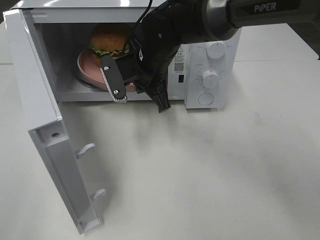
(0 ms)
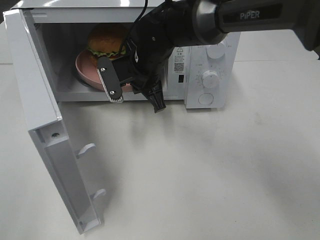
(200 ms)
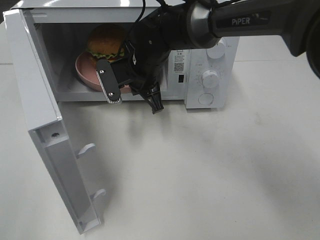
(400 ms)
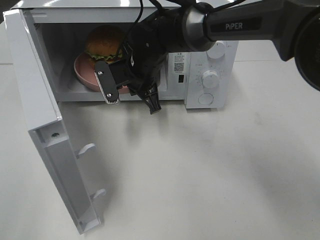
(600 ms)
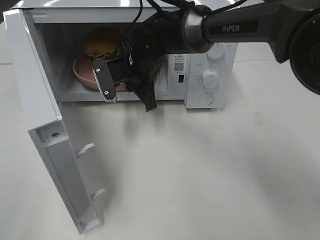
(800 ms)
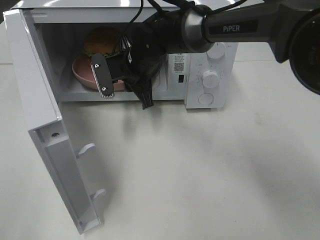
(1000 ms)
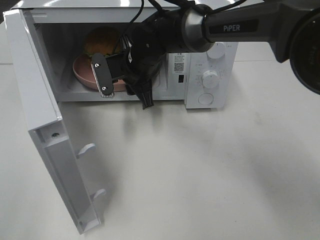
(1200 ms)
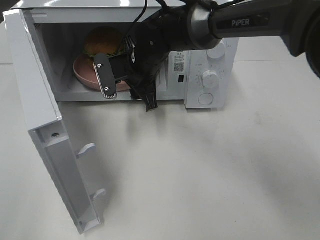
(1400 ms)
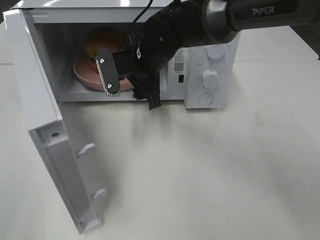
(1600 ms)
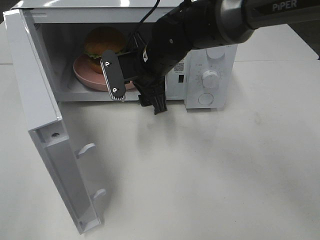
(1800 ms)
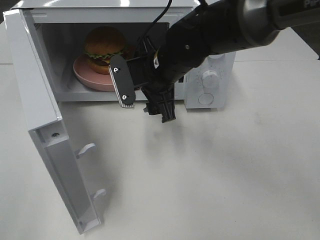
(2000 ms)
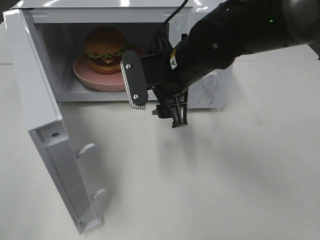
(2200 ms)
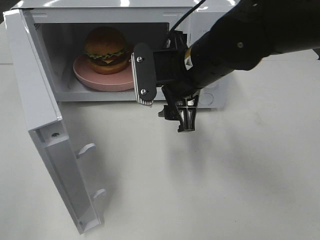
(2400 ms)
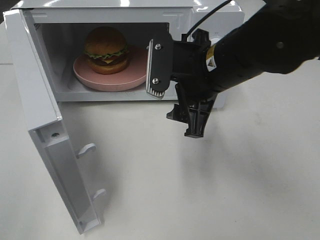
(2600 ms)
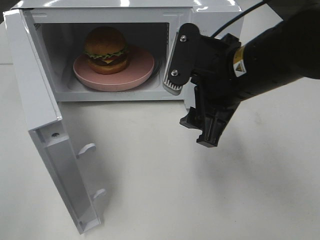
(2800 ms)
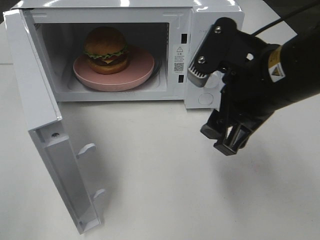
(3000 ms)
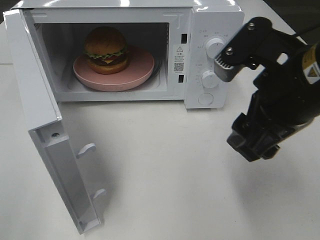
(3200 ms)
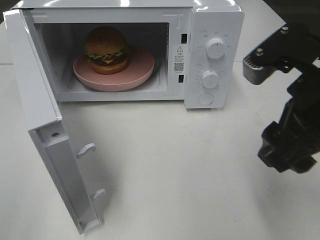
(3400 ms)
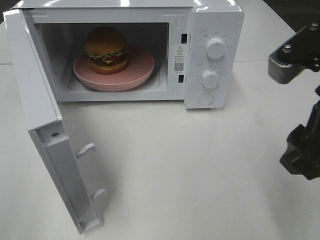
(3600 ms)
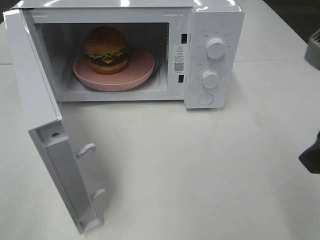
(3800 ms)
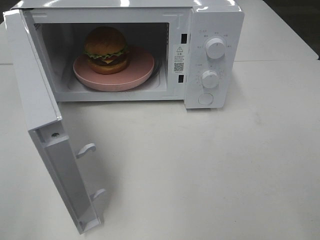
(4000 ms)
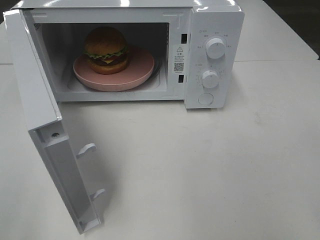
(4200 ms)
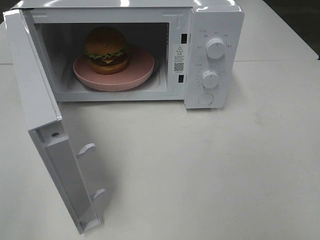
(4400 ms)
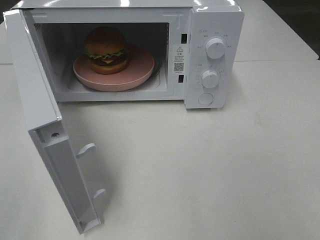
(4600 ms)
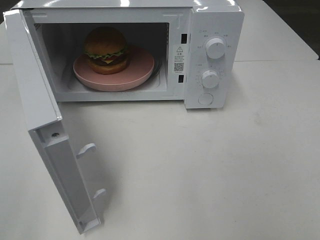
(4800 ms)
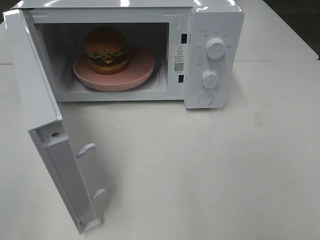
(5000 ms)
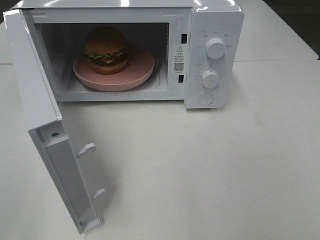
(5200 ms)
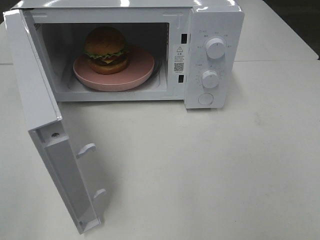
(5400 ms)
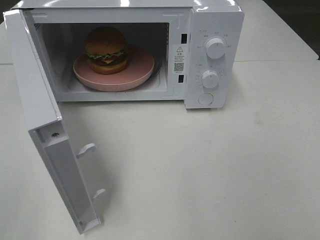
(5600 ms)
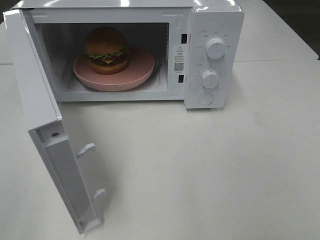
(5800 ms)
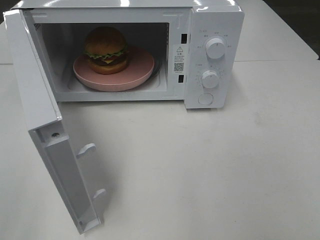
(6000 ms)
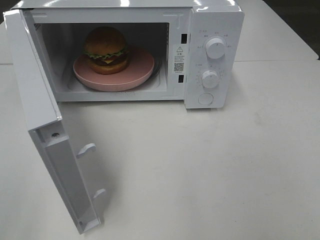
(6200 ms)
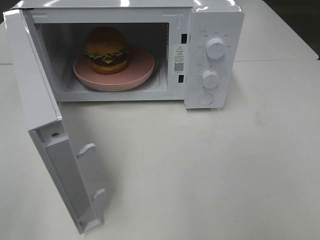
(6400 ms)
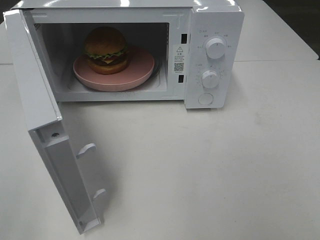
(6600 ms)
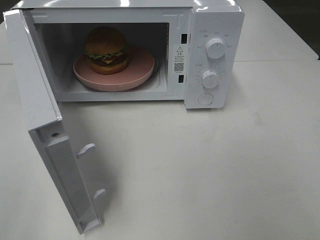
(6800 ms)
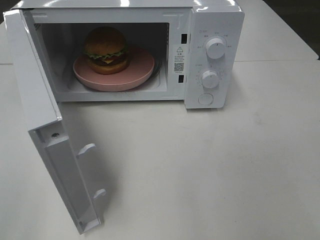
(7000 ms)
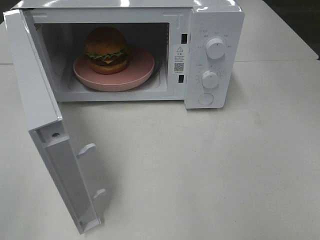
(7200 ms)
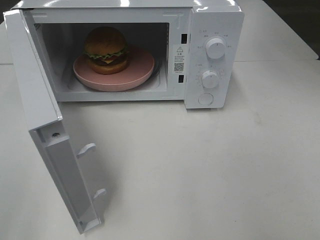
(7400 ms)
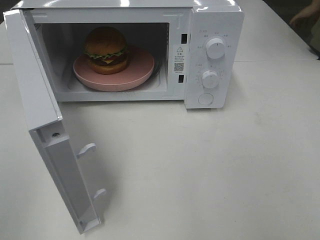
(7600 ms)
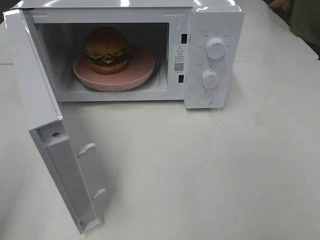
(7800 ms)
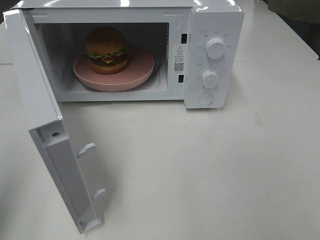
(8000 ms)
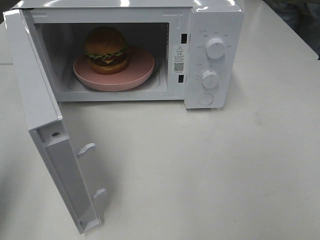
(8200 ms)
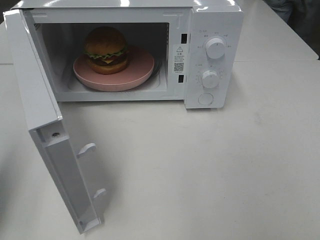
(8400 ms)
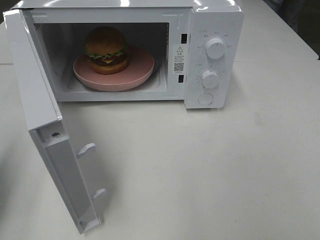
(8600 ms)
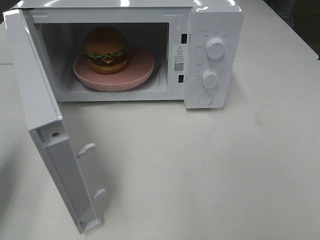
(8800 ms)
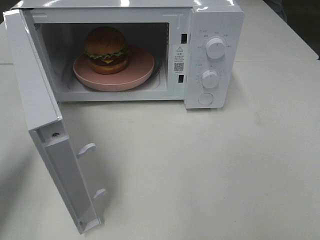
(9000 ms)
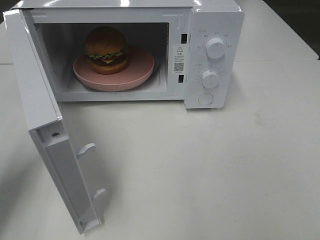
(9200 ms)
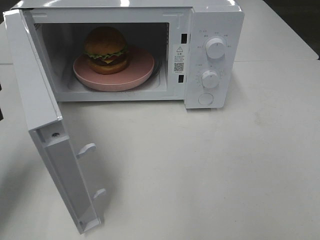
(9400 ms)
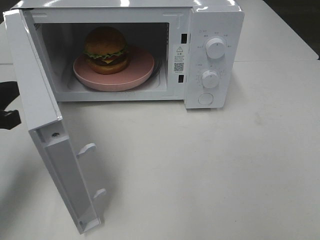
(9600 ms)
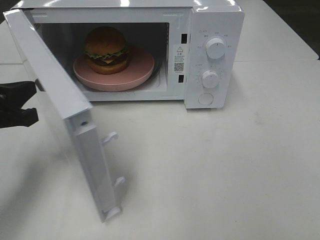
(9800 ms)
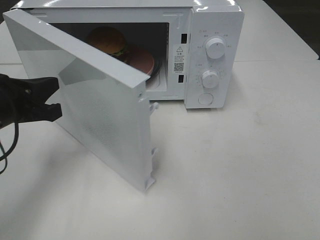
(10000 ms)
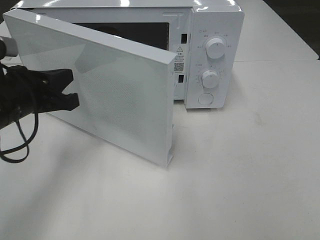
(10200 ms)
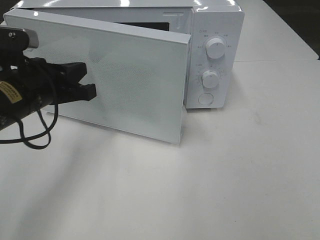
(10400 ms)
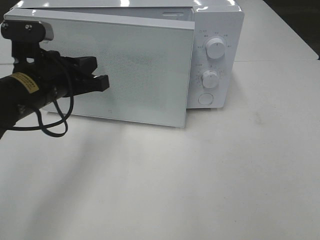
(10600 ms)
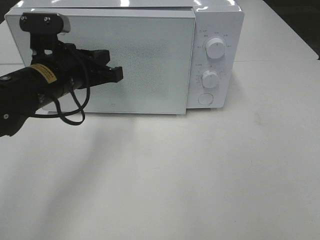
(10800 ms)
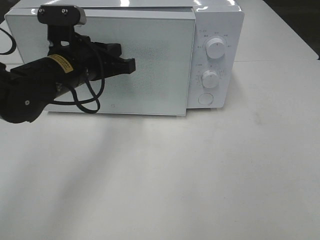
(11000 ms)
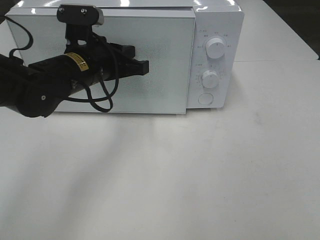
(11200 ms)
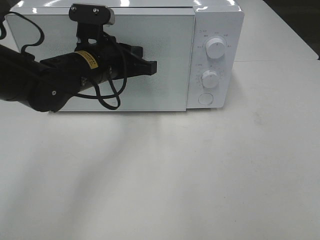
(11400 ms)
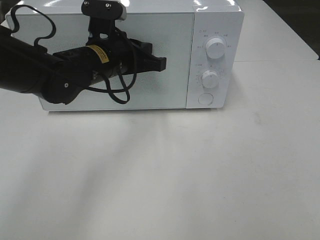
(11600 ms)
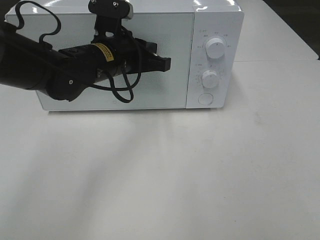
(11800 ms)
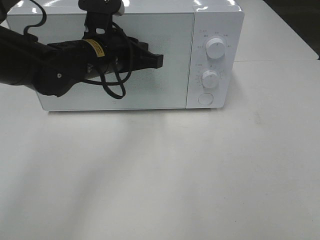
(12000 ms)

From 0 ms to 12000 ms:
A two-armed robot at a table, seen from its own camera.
Task of the whole recording: Heat the burger.
Step, from 1200 ms to 12000 ms: Left hand: close the microwave door.
From 0 ms to 1600 ms: The right gripper opens.
From 1600 ms to 3000 ms: The right gripper shifts some 25 cm backward, to the right and upward.
From 3000 ms to 4400 ms: The right gripper goes about 20 cm to the right and backward.
From 7600 ms to 9000 ms: The left gripper travels forward and downward by about 20 cm, and closes up.
From 9000 ms to 10400 ms: The left gripper is displaced to the right and forward by roughly 15 cm.
From 10400 ms to 12000 ms: The left gripper is displaced to the right and forward by some 10 cm.

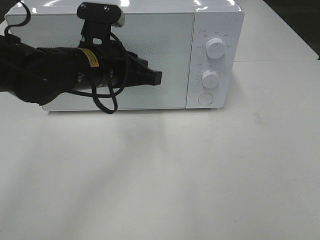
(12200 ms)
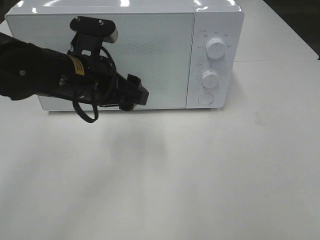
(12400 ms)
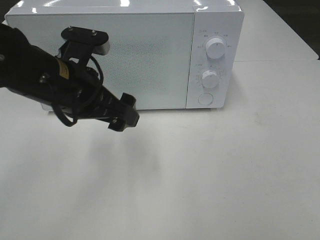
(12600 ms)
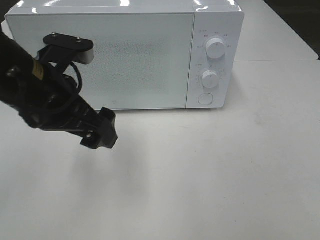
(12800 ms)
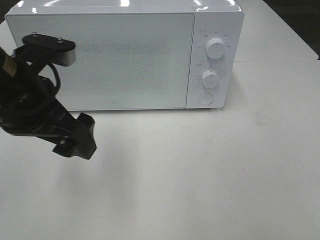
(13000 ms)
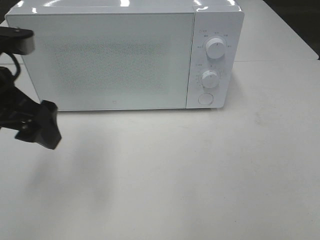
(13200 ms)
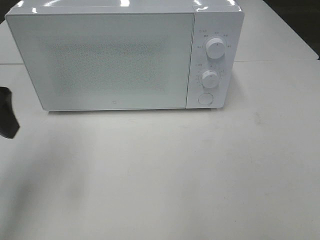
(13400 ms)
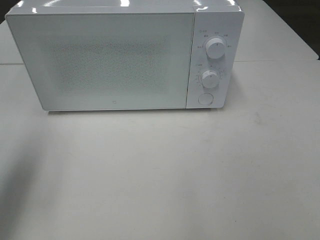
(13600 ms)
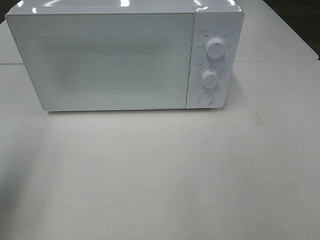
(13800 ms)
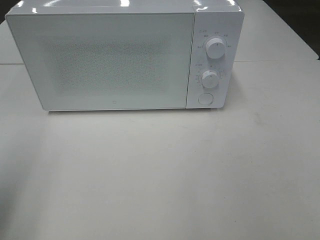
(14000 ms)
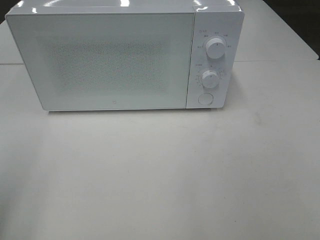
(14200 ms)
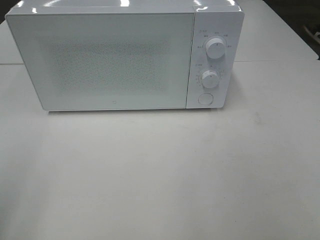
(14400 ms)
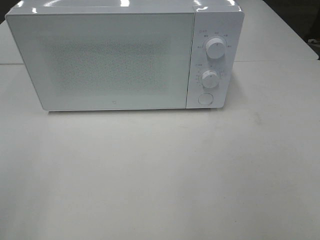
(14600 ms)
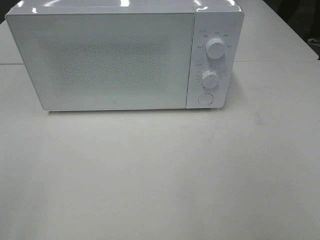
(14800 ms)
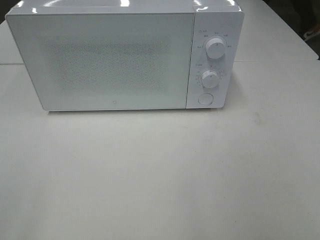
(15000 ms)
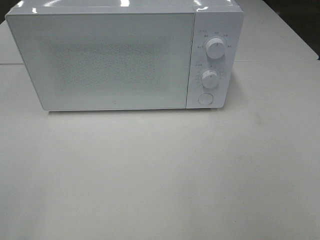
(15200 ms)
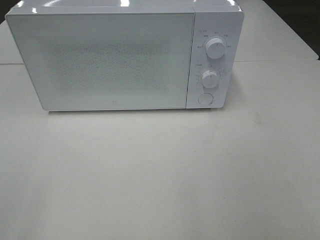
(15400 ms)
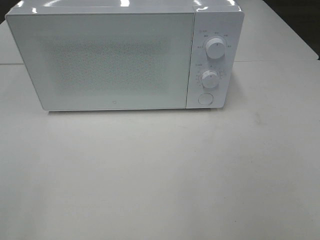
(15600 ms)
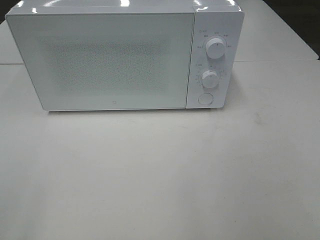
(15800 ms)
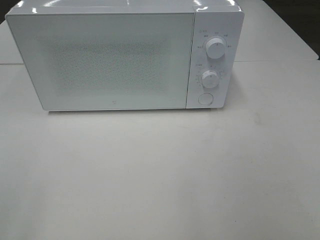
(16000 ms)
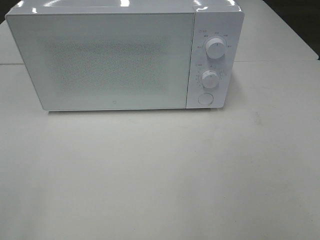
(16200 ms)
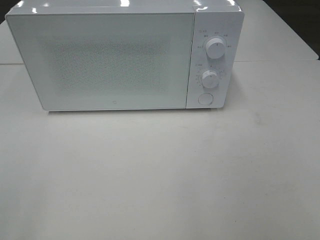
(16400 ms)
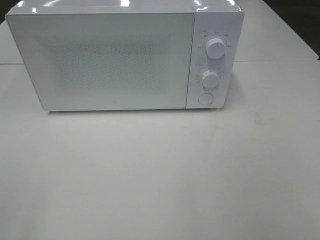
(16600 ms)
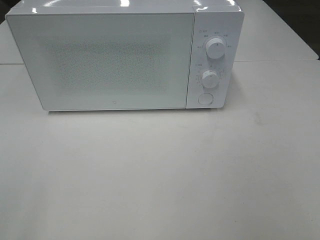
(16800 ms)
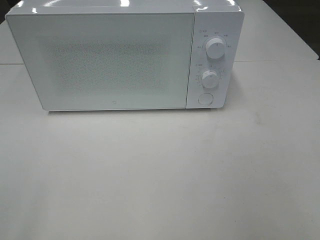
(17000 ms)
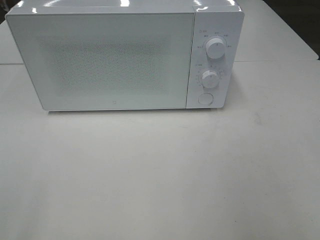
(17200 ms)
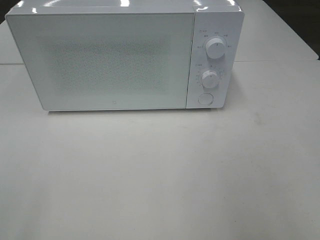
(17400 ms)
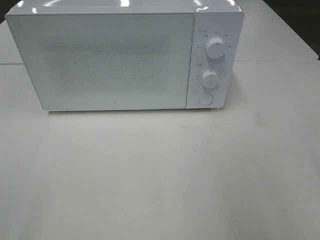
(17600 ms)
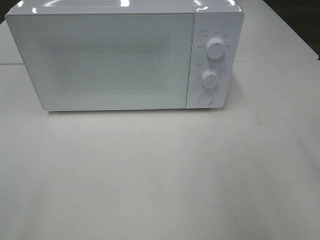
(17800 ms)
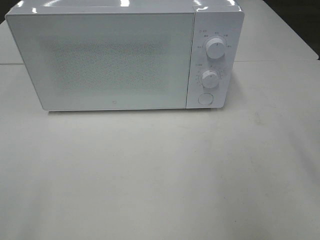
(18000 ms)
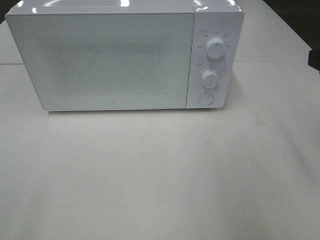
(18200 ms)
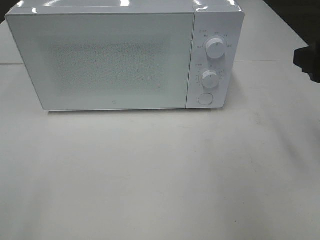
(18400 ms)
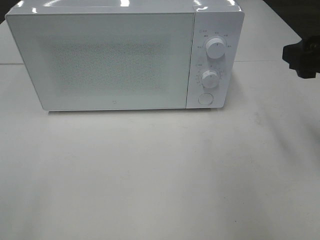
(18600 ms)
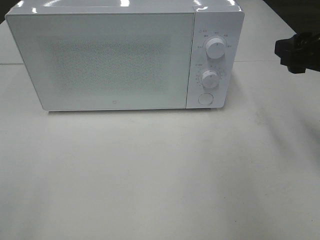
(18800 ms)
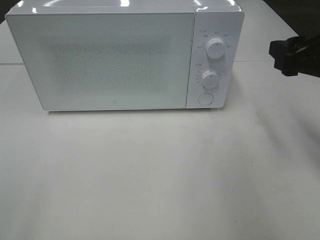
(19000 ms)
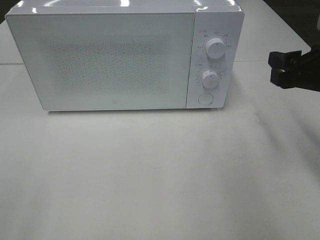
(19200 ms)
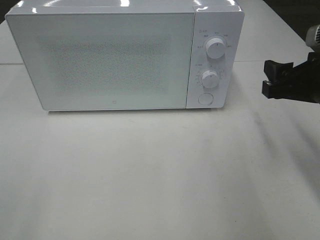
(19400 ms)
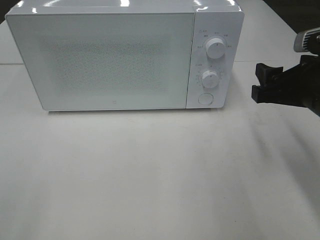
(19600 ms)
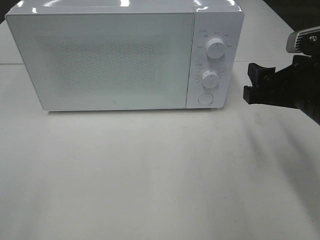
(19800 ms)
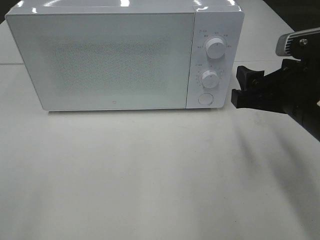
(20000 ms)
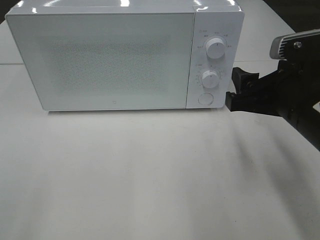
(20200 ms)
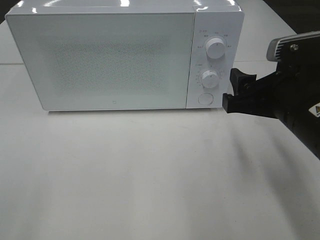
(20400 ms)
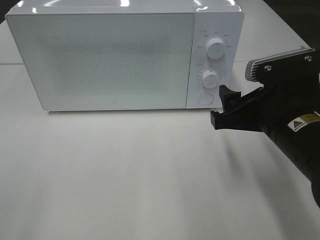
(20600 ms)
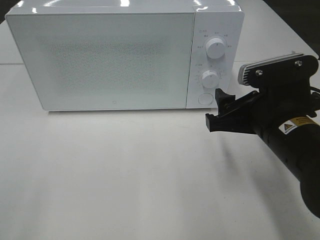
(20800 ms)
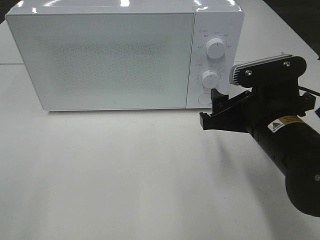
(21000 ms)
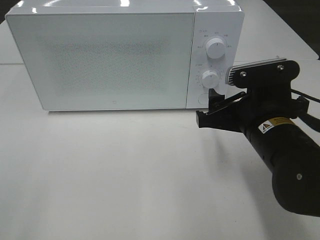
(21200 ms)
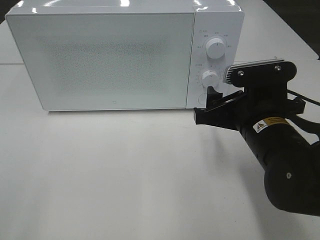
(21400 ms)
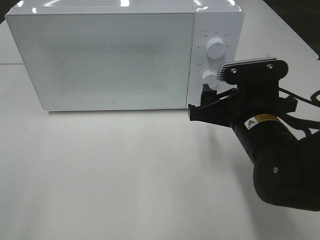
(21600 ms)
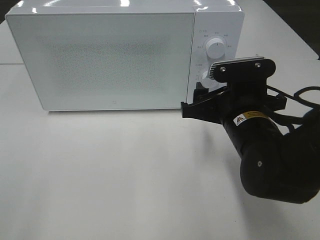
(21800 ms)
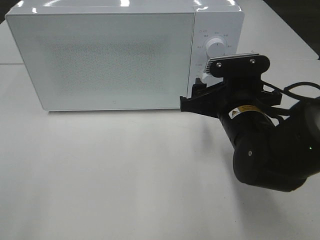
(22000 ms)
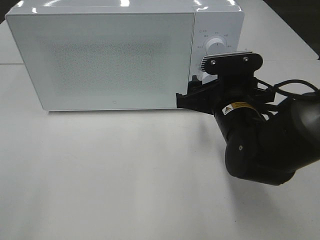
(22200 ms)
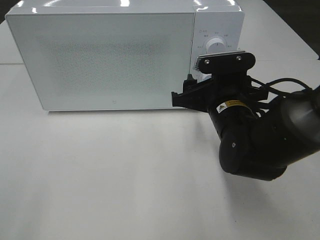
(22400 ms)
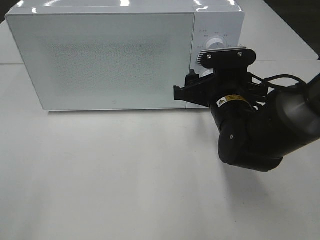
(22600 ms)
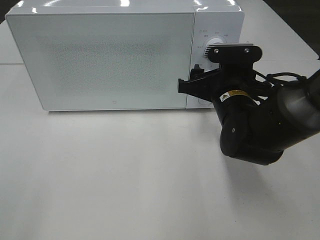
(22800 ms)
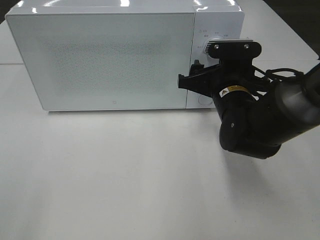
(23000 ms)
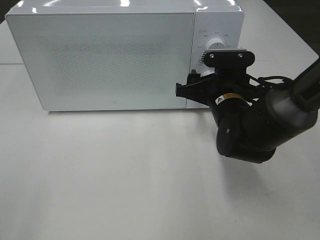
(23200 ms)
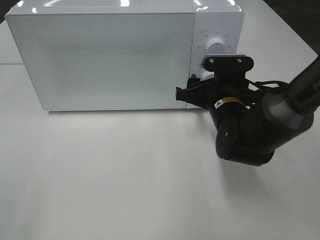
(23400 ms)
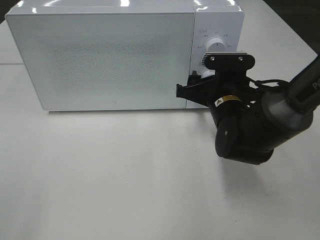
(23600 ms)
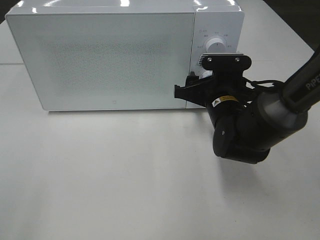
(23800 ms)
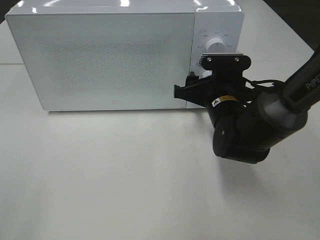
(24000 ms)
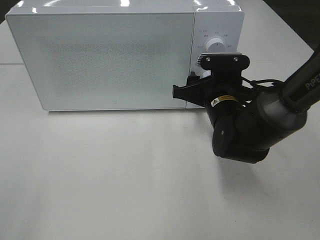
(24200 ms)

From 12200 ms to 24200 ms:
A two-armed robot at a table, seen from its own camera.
Task of the whole recording: Heat the burger.
From 12200 ms to 13800 ms: The left gripper goes some 25 cm to the left and backward, and opens up.
From 13800 ms to 15200 ms: The left gripper is displaced backward by some 15 cm.
From 15200 ms to 16600 ms: Both grippers stay put.
From 18200 ms to 19800 ms: The right gripper shifts roughly 10 cm downward and to the left.
From 19800 ms to 21200 ms: The right gripper heads to the left, covering some 5 cm.
From 21200 ms to 22600 ms: The right gripper is displaced forward by some 10 cm.
From 22600 ms to 24200 ms: The grippers make only small movements.
